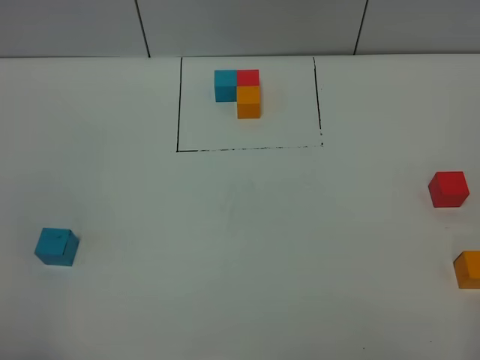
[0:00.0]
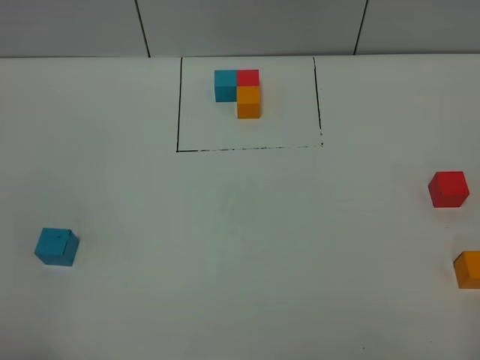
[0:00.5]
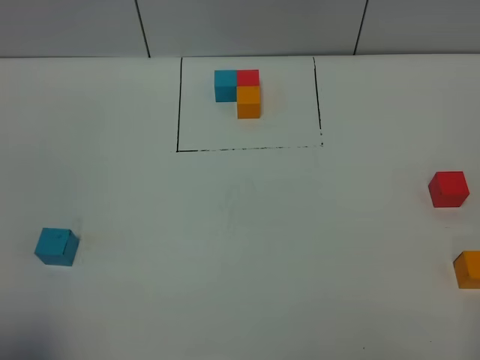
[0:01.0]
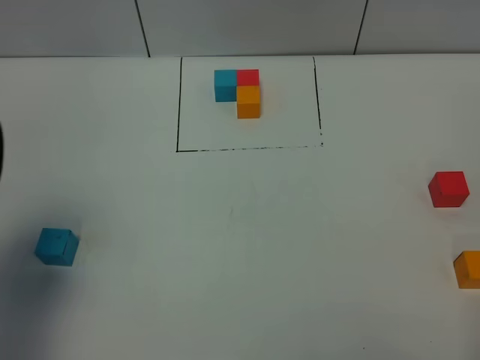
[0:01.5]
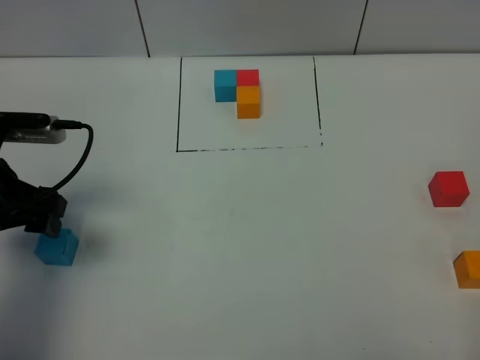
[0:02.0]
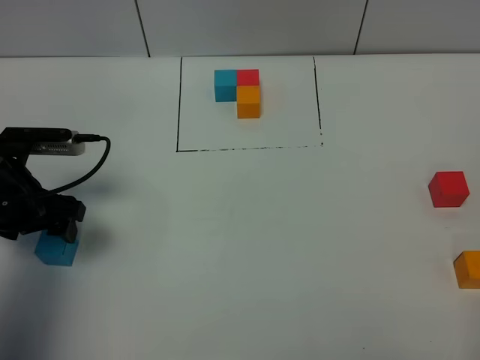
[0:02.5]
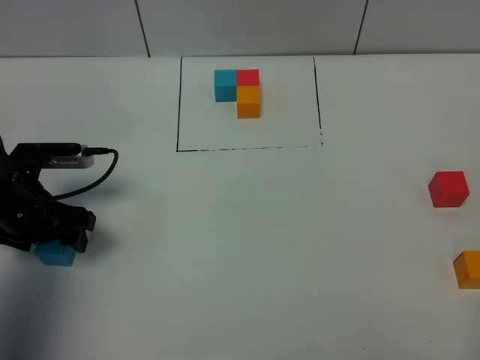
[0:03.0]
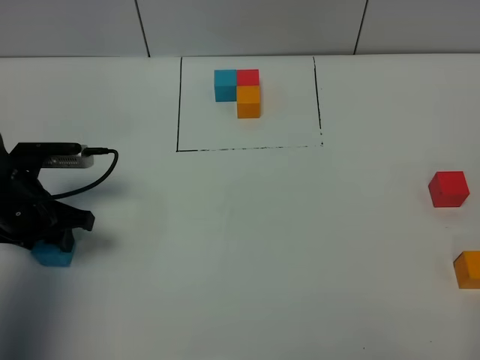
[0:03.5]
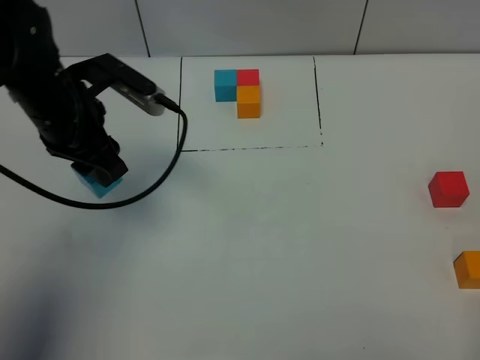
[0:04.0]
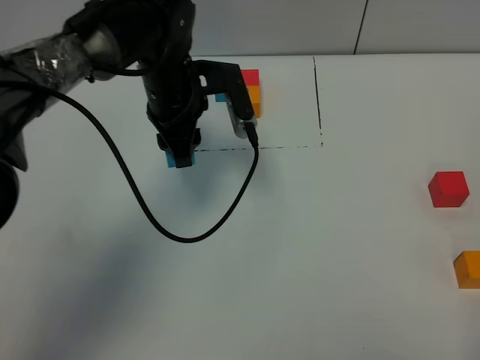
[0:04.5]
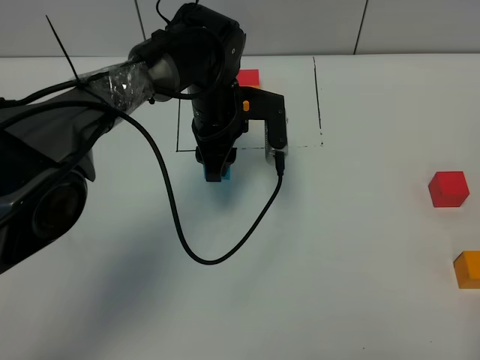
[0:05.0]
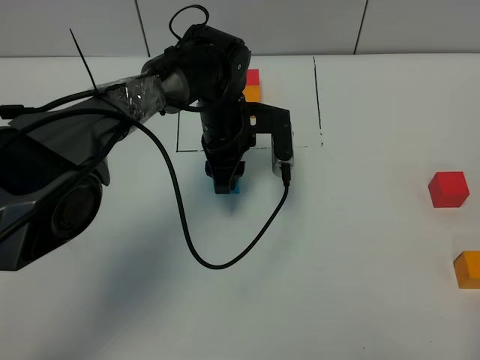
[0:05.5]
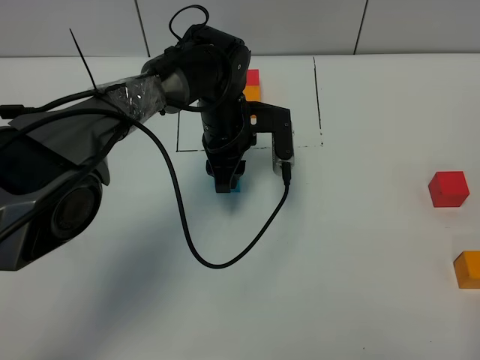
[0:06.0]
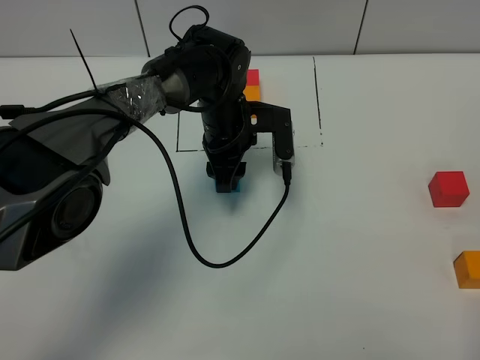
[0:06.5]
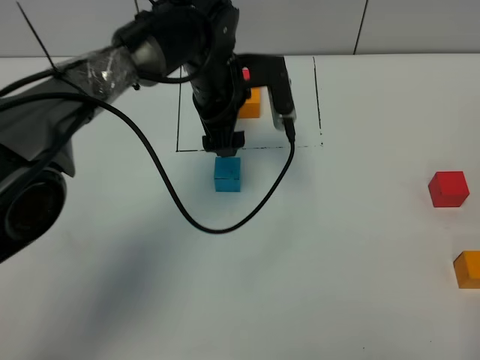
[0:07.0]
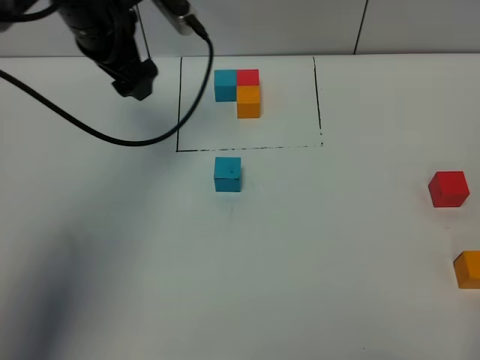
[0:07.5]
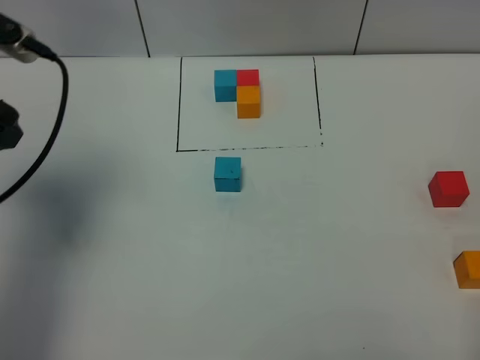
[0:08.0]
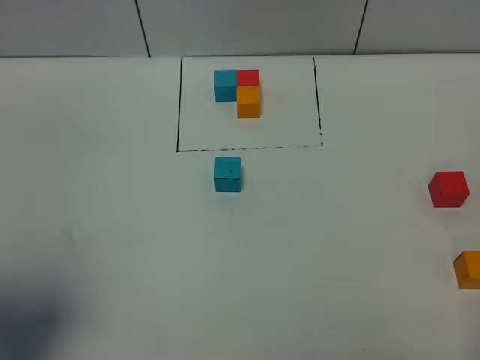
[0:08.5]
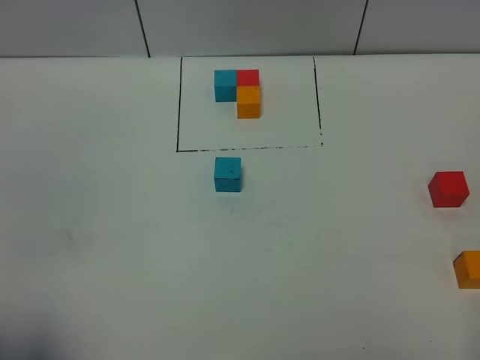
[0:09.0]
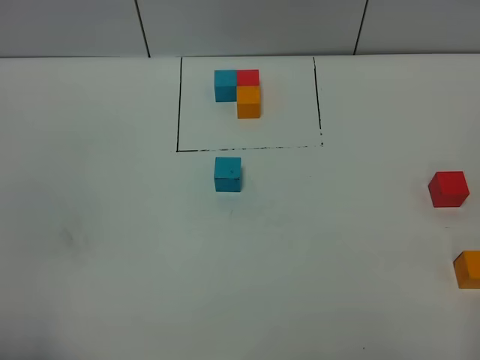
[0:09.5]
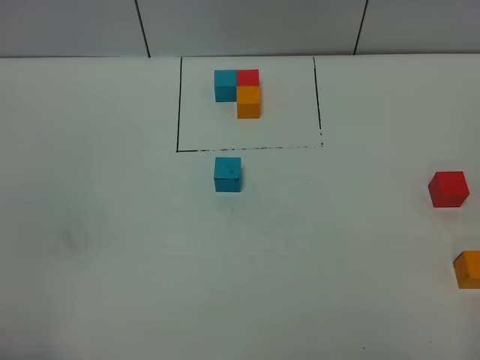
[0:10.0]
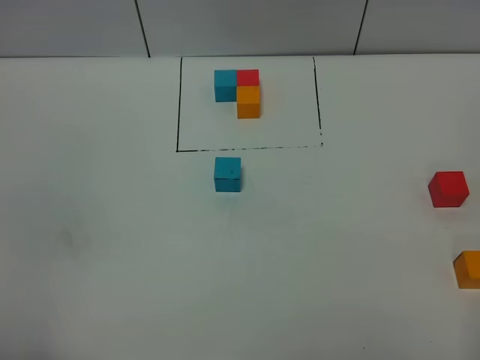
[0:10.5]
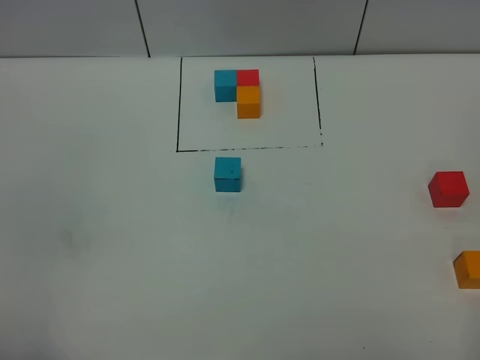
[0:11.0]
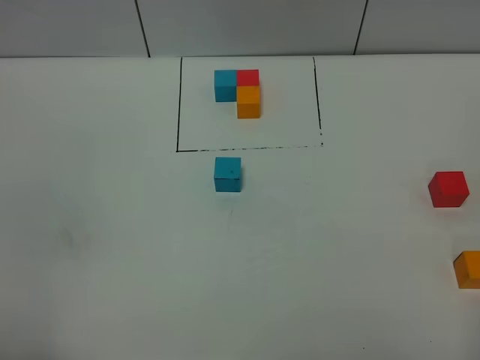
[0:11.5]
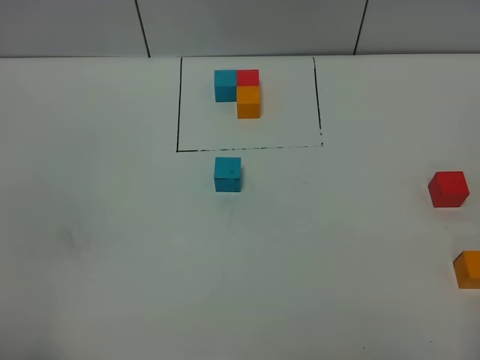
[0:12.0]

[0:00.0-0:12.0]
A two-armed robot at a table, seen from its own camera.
Task of the whole recording: According to the building block template in front, assemble the scattered blocks together.
Step, 0:00.0 to 0:06.5: Put the blue build block in the center of the table.
0:00.0 to 0:02.0: The left gripper goes some 25 cm forward.
0:02.0 to 0:04.0: The left gripper moves to the right and forward, some 10 cm, travels downward and back again, roughly 10 cm each way, and closes up.
0:04.0 to 0:06.0: The left gripper moves to the right, downward and forward, roughly 20 cm.
0:06.0 to 0:08.0: The left gripper heads to the left, upward and backward, covering approximately 35 cm, and opens its fingers.
0:08.0 to 0:10.0: The left gripper moves backward, about 30 cm.
0:10.0 to 0:12.0: The two grippers keep their place.

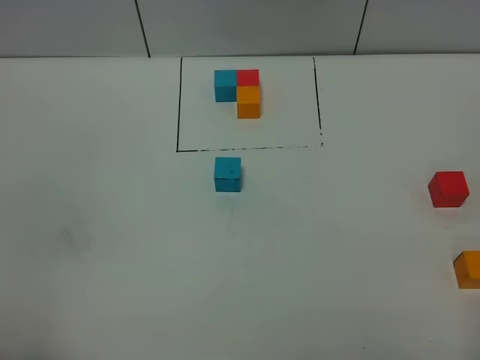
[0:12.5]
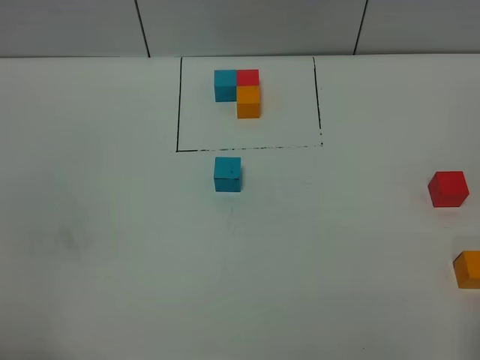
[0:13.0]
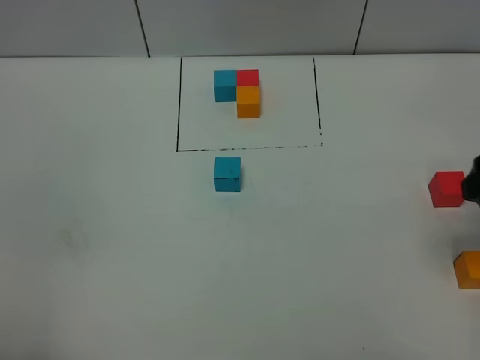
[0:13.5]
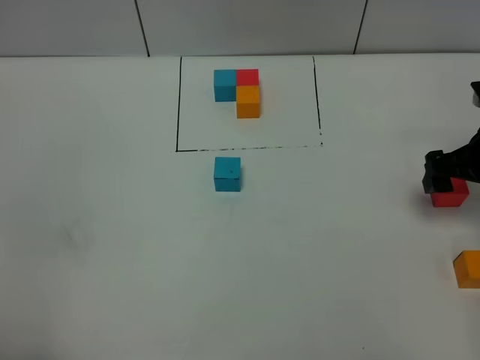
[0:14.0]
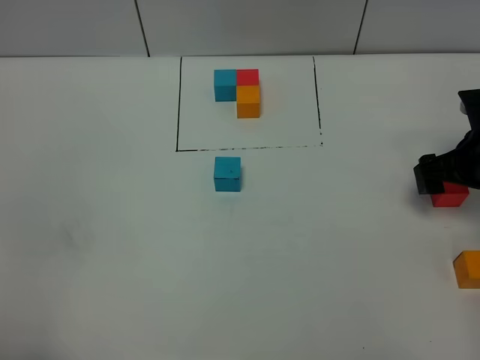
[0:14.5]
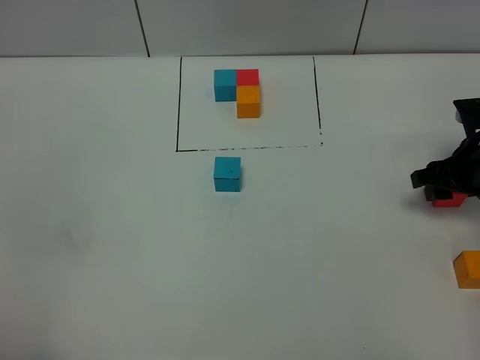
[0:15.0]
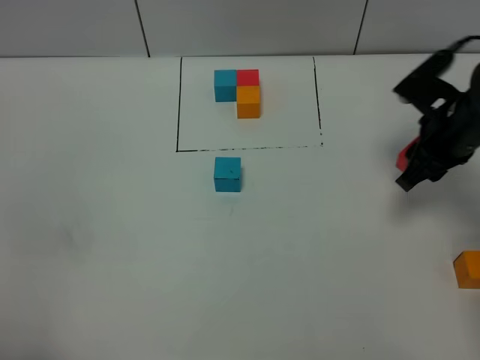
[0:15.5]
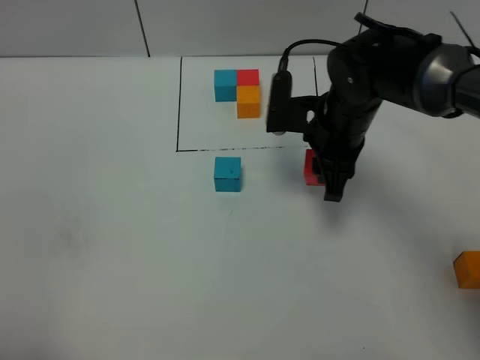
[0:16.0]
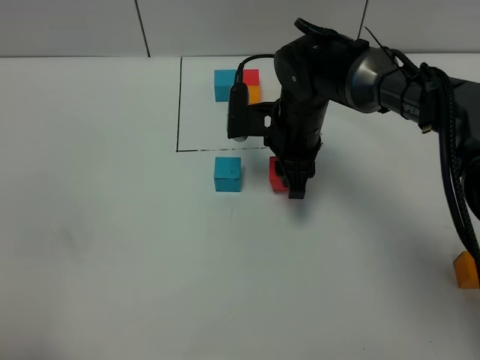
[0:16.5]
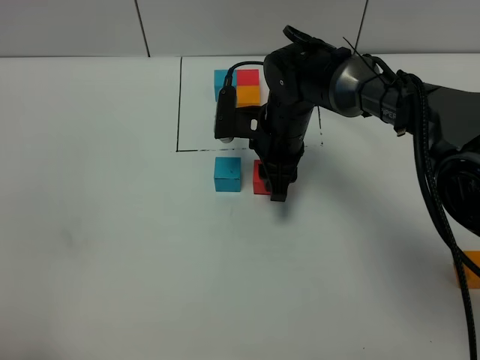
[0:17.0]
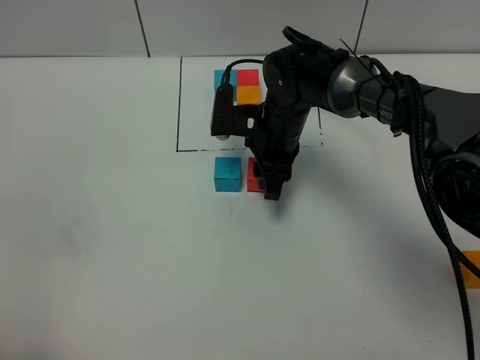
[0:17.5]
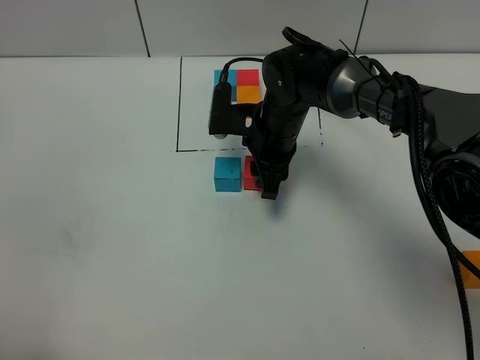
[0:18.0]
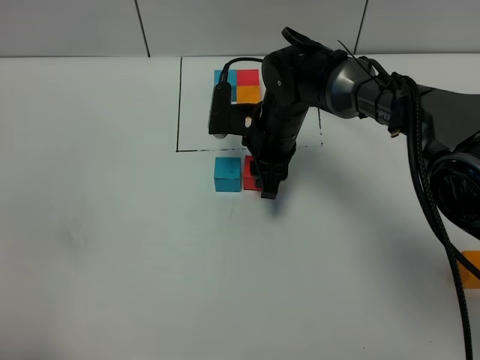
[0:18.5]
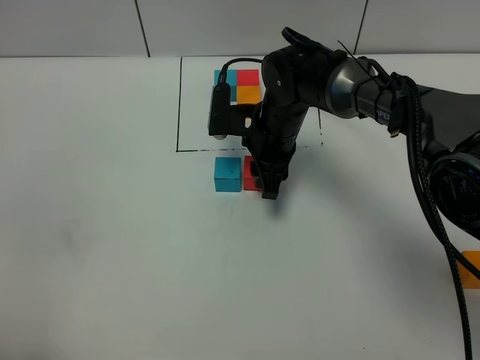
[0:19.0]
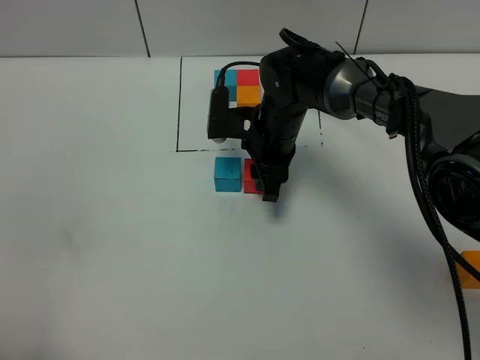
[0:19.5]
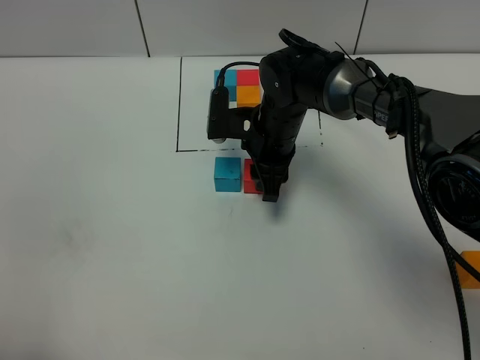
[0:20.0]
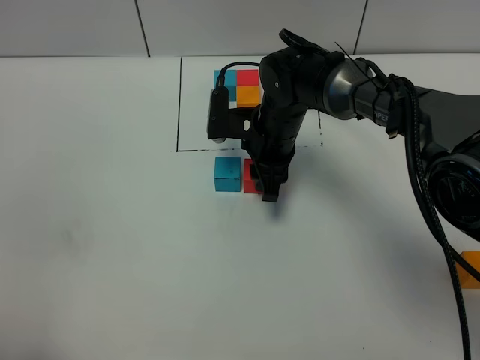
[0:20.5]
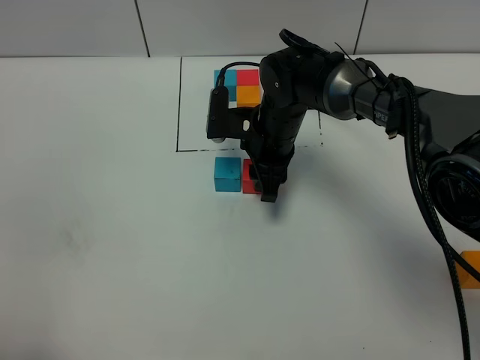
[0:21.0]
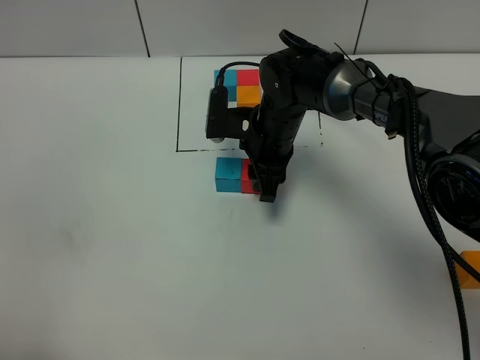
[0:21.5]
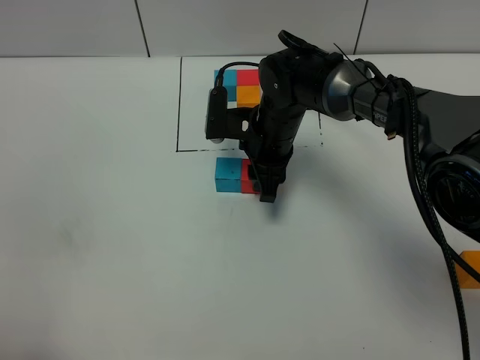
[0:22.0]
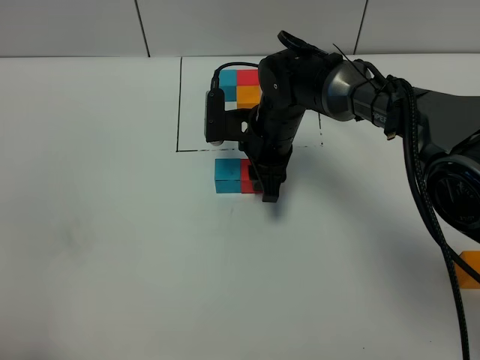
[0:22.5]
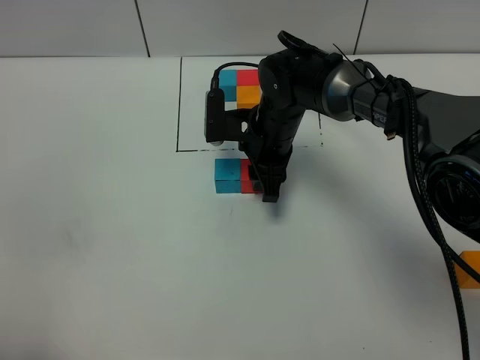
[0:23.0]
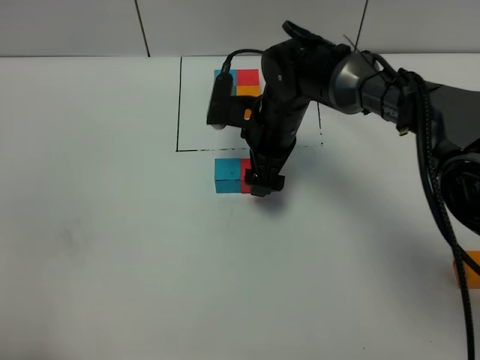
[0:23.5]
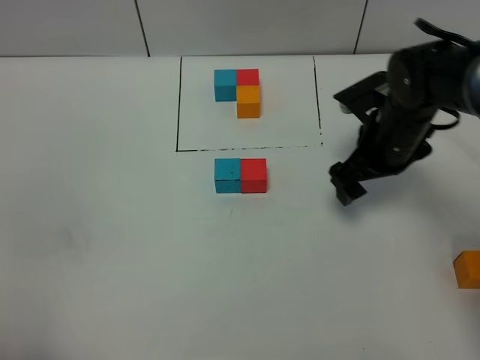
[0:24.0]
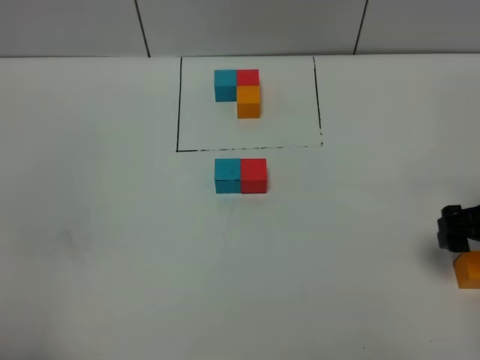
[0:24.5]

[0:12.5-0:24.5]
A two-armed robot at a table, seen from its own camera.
Task of the whole recording: According to the building block template in front, assemble the scattered blocks together.
Step, 0:12.5 to 0:23.0: Put the red build block on the right of the blue build block.
0:12.5 to 0:14.5: The right gripper shifts about 35 cm forward.
0:14.5 to 0:16.5: The right gripper is displaced to the left by approximately 25 cm, and closes.
0:16.5 to 0:18.5: The grippers stay close to where they were, moving slightly.
0:18.5 to 0:20.5: The two grippers keep their place.
0:20.5 to 0:22.5: Both grippers stay about where they are.
0:22.5 to 0:24.5: The right gripper travels to the right and backward by about 30 cm, and opens.

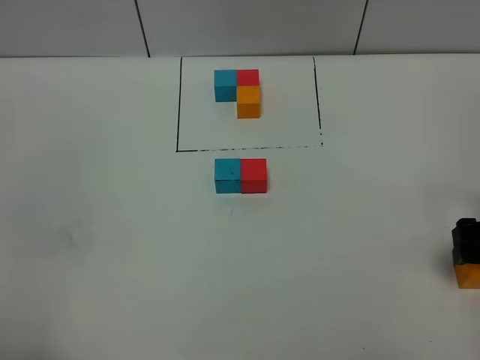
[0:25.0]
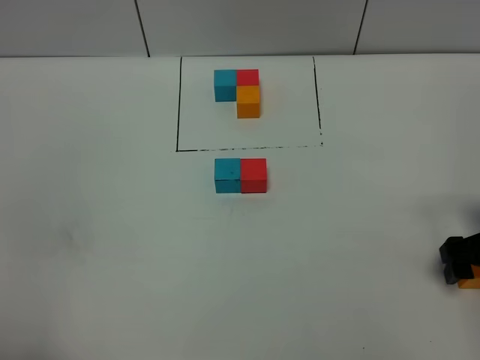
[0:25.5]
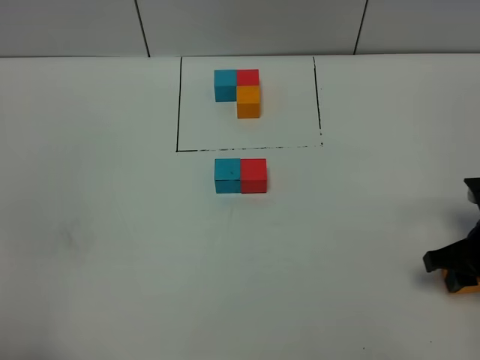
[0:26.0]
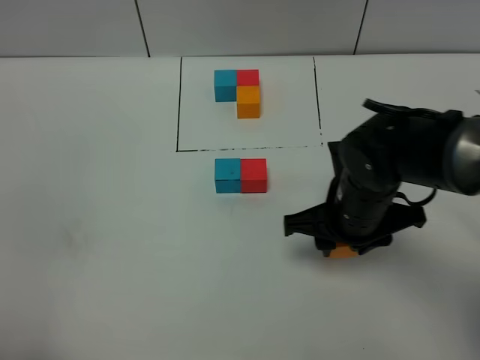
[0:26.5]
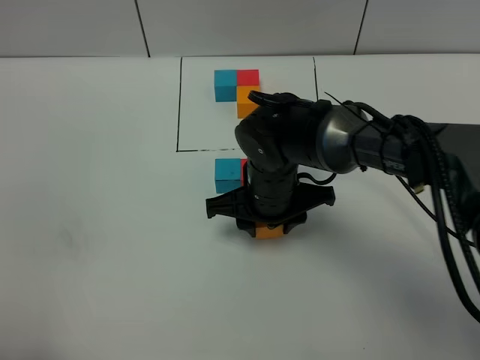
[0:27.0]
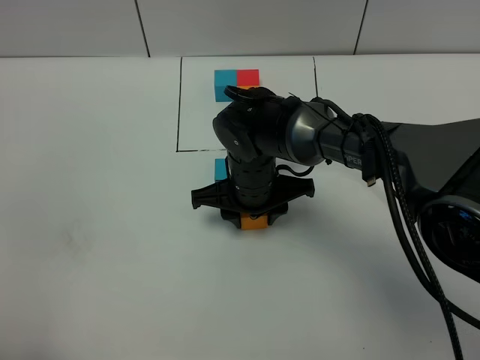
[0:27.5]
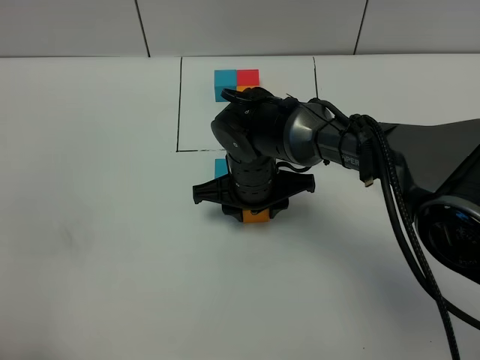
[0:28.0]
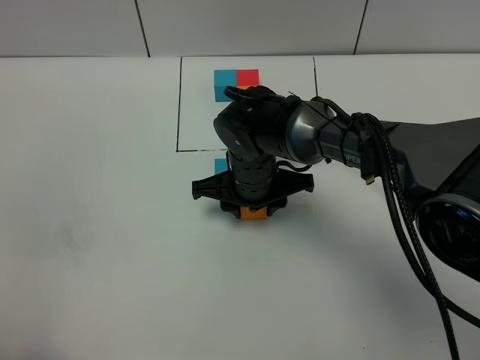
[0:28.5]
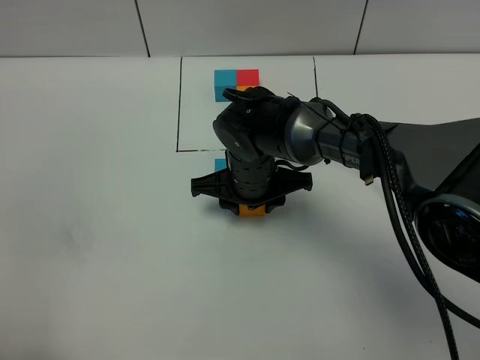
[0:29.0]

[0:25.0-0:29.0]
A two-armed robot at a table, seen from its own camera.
Task of the whole recording: According to the building block template in front, assemble the scattered blocks together.
0:25.0 to 0:27.0: The right gripper is displaced to the left by roughly 30 cm, and closes up.
0:27.0 to 0:29.0: There are only small adjustments of the grippers.
